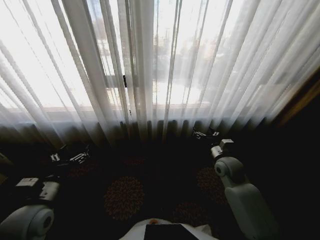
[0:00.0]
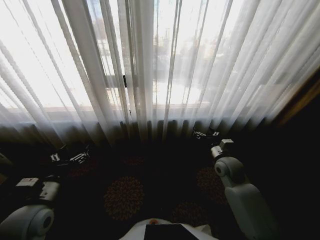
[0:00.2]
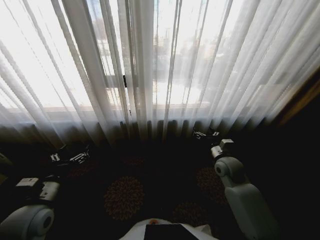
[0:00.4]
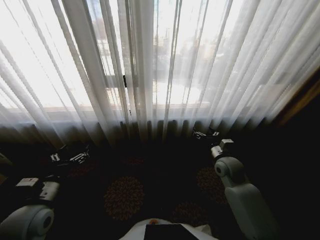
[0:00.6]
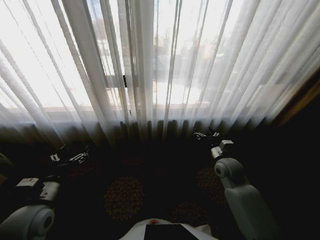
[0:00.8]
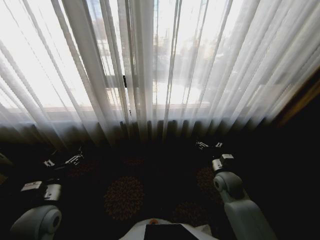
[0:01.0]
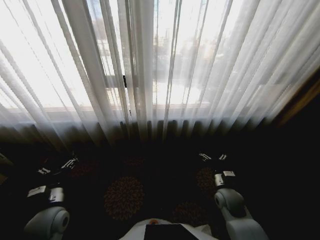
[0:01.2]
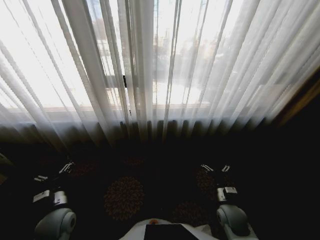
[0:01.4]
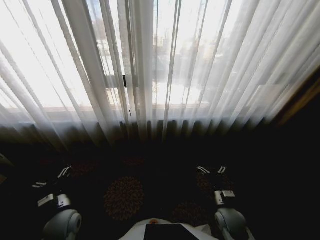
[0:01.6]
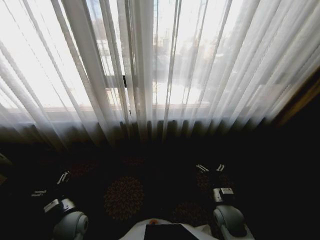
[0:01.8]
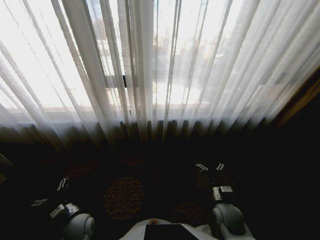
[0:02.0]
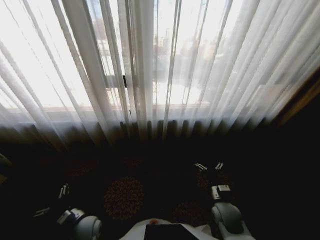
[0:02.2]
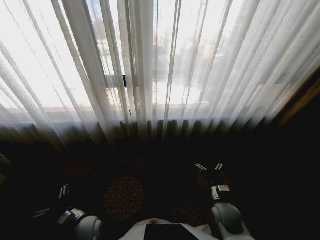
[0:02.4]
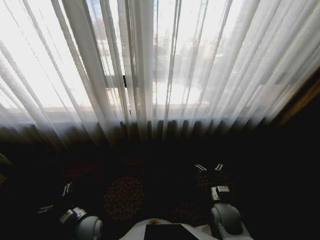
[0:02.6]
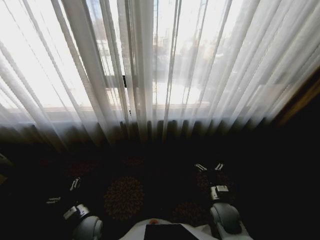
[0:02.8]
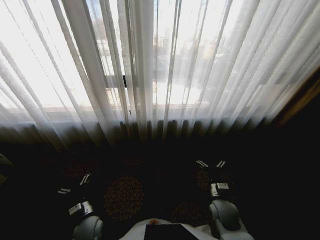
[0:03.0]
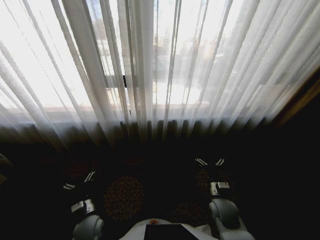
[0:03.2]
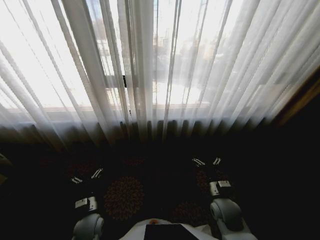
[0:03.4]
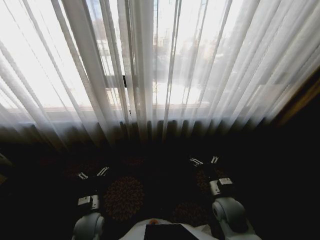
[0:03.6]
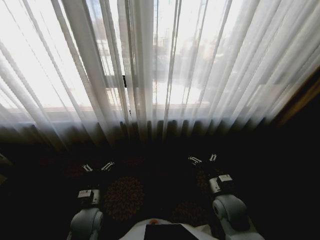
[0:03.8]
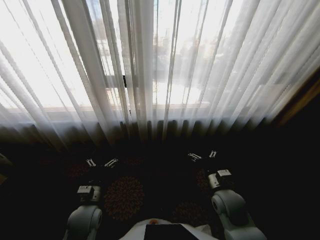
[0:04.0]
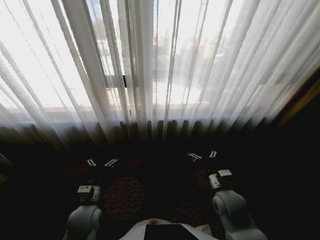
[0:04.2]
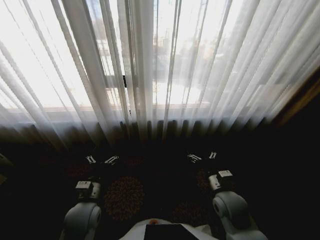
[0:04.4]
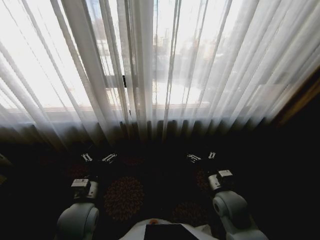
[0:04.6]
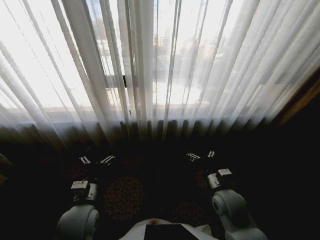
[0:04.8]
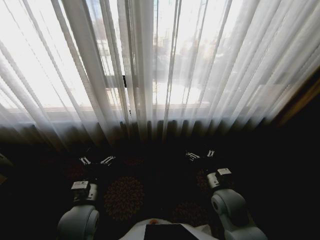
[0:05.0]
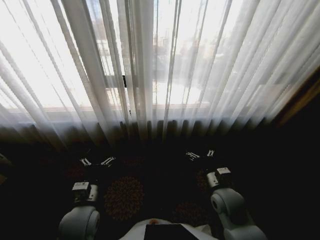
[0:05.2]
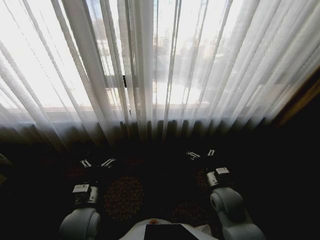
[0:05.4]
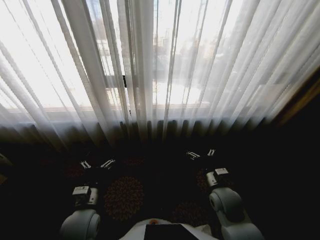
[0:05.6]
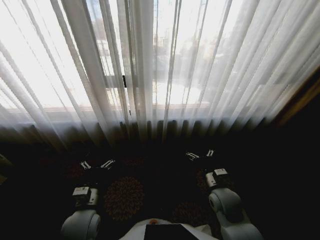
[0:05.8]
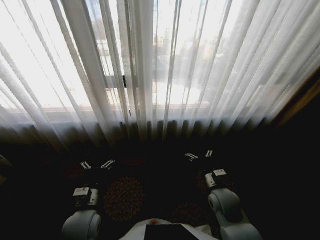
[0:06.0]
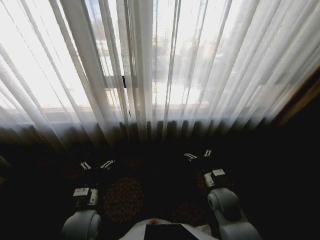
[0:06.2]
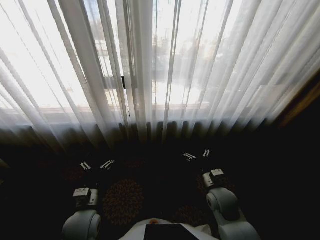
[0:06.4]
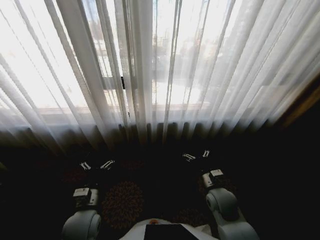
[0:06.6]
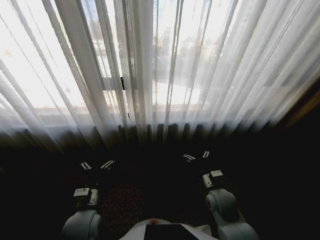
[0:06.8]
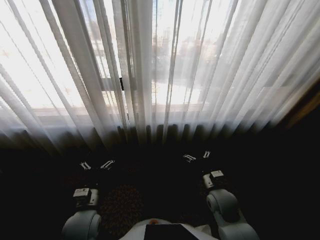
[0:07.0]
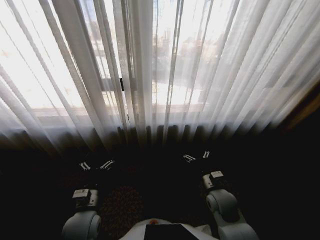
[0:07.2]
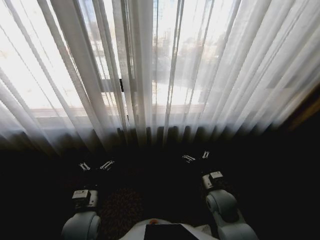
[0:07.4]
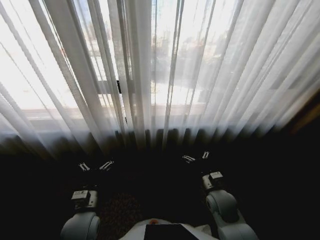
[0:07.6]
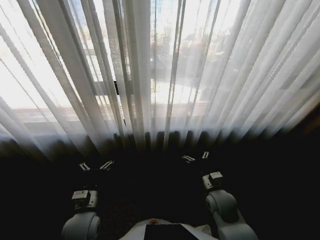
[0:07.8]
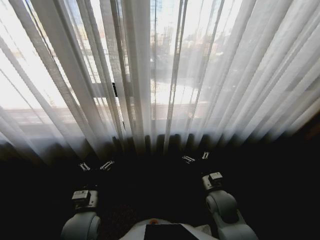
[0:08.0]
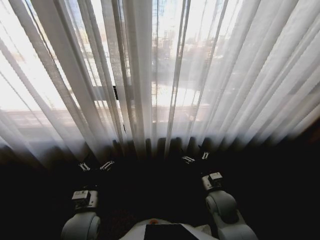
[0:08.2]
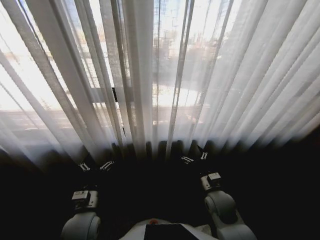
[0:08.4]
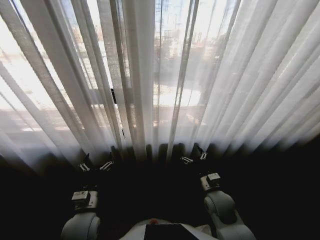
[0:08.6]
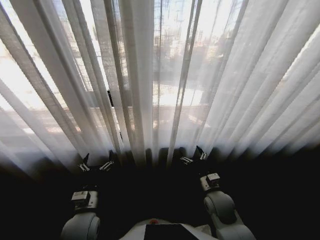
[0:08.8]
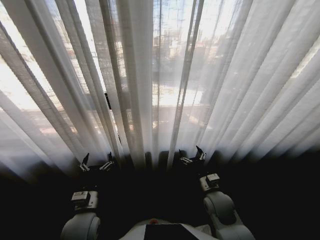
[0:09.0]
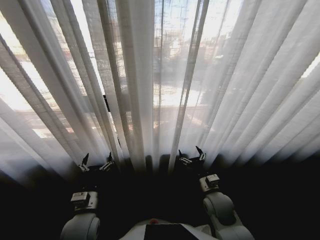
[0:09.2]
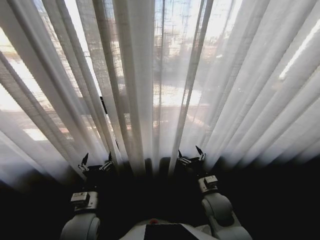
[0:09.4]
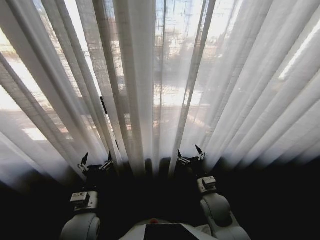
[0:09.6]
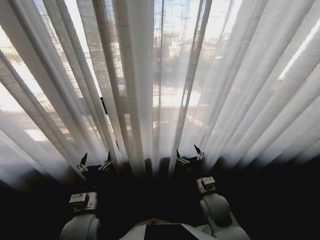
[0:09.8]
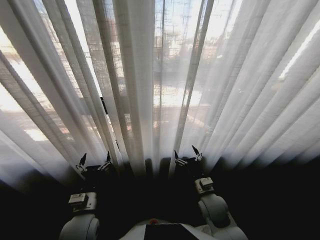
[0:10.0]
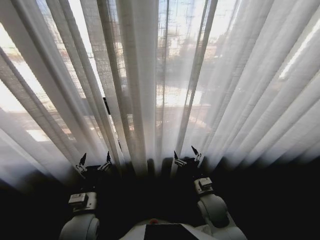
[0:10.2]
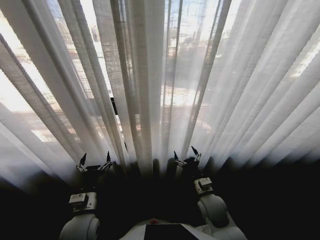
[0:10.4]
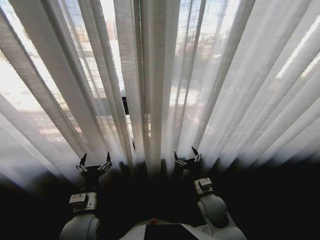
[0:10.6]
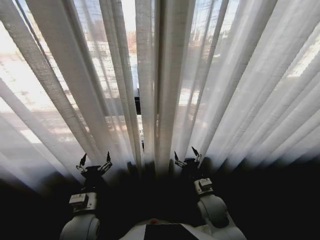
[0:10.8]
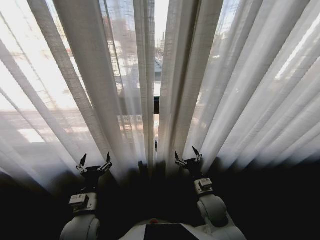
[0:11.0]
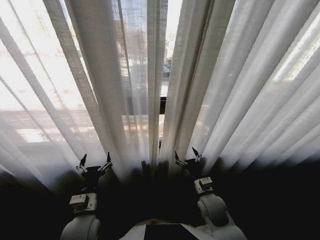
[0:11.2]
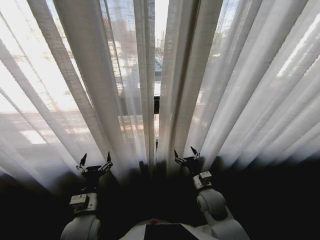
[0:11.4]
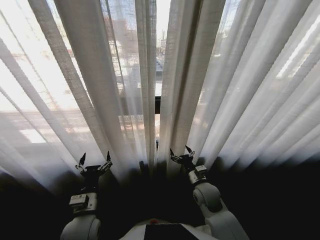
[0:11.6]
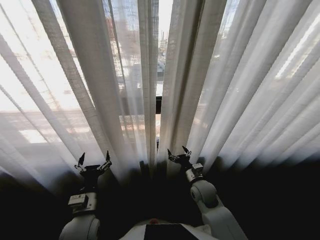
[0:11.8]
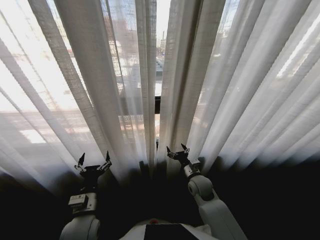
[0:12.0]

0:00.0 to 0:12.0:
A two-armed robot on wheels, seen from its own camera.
Task of the whole recording: Open the curtains by pulling them apart, changing their state from closed to fully open.
0:01.6 to 0:03.0: The left gripper goes about 10 cm downward and to the right.
0:03.0 to 0:04.4: The grippers both shift upward by roughly 10 cm.
0:04.4 to 0:06.0: The grippers stay close to where they were, moving slightly.
0:10.4 to 0:12.0: The right gripper moves forward, about 10 cm.

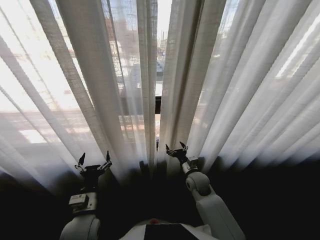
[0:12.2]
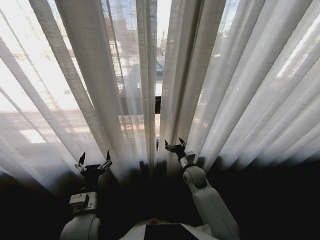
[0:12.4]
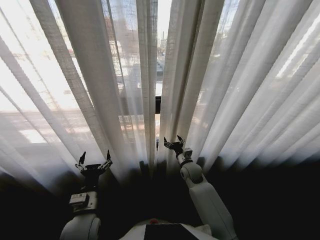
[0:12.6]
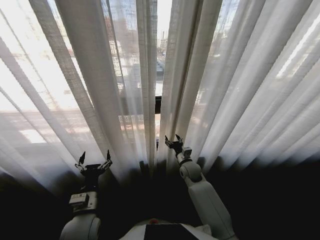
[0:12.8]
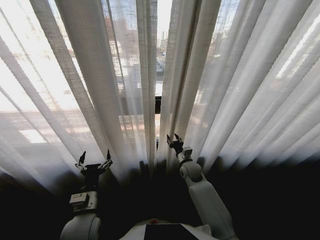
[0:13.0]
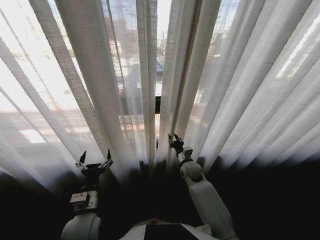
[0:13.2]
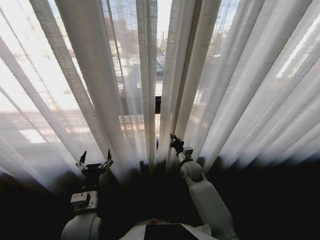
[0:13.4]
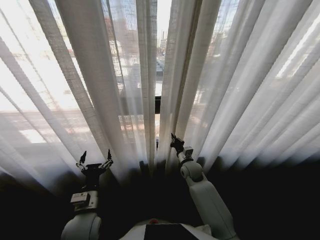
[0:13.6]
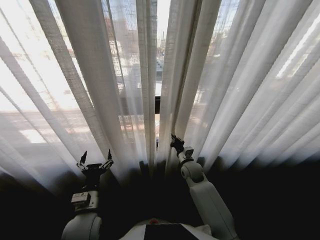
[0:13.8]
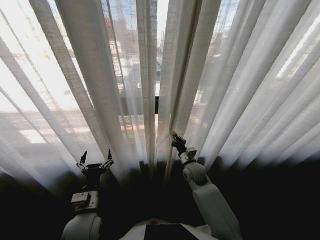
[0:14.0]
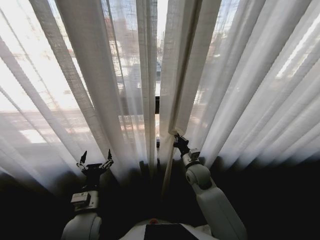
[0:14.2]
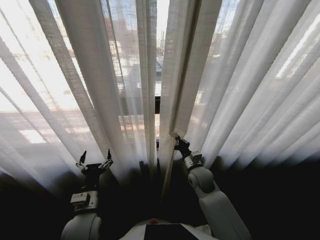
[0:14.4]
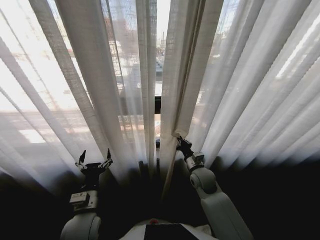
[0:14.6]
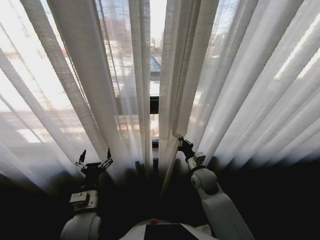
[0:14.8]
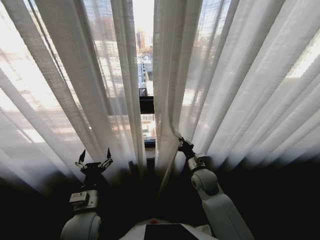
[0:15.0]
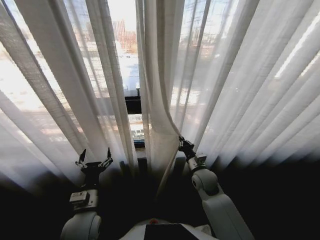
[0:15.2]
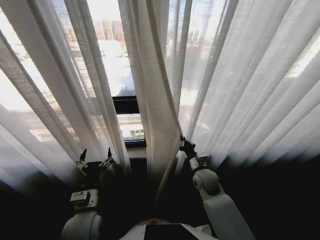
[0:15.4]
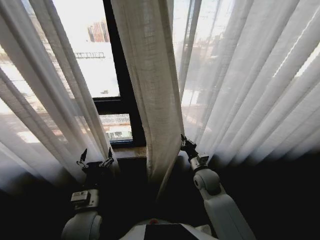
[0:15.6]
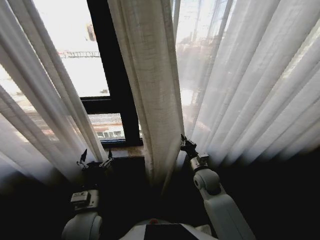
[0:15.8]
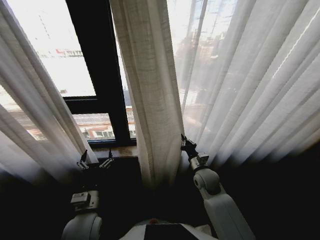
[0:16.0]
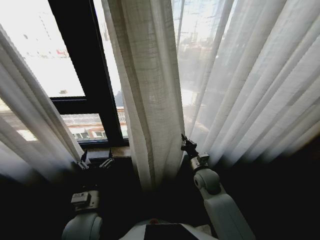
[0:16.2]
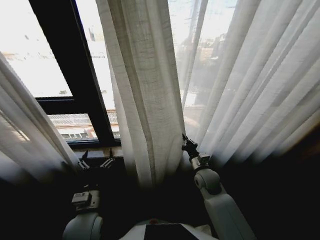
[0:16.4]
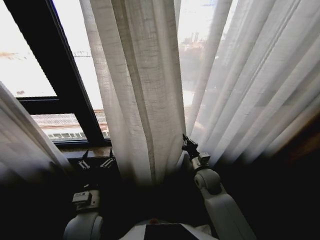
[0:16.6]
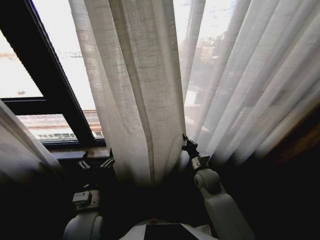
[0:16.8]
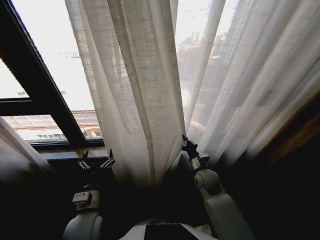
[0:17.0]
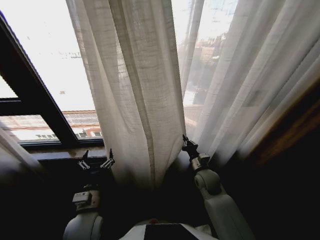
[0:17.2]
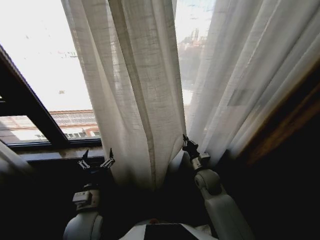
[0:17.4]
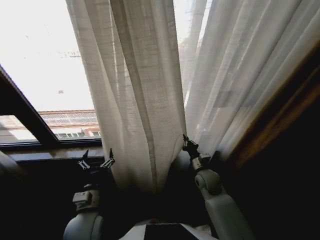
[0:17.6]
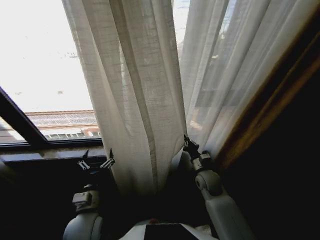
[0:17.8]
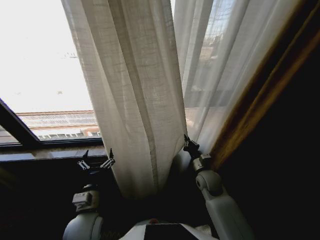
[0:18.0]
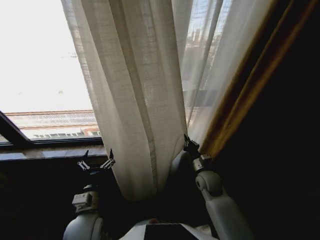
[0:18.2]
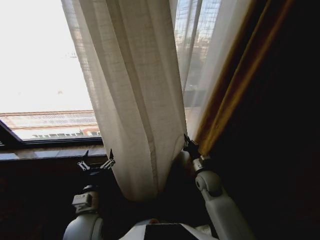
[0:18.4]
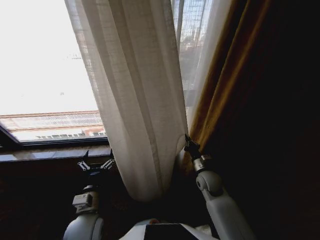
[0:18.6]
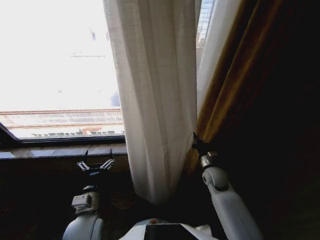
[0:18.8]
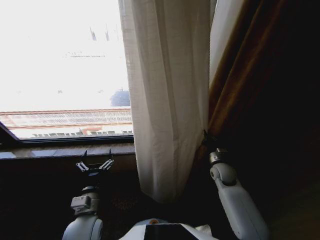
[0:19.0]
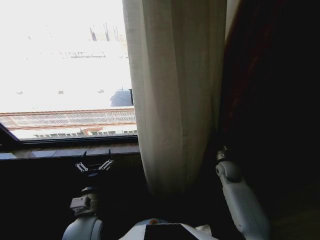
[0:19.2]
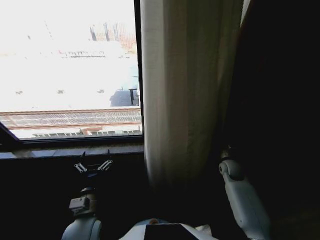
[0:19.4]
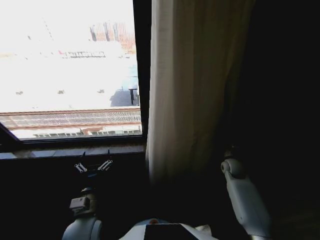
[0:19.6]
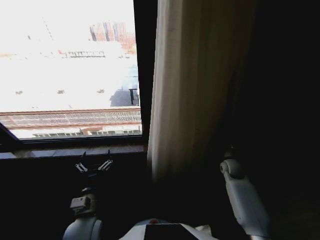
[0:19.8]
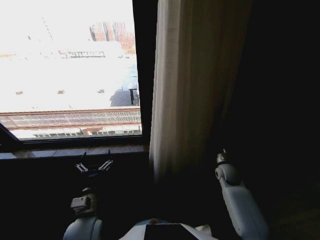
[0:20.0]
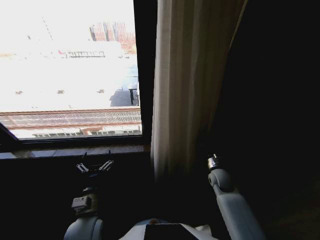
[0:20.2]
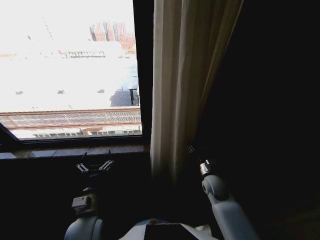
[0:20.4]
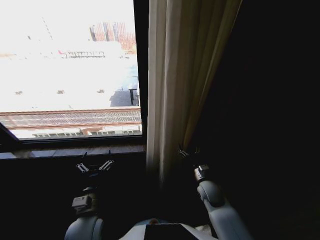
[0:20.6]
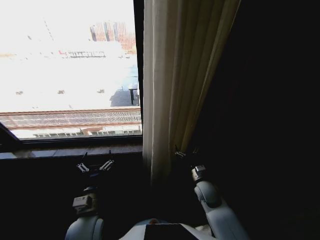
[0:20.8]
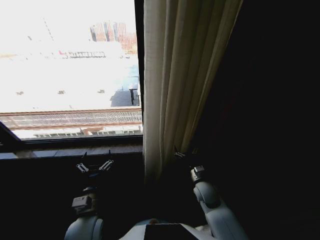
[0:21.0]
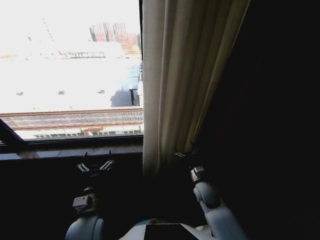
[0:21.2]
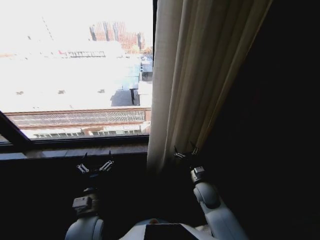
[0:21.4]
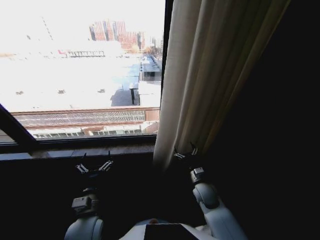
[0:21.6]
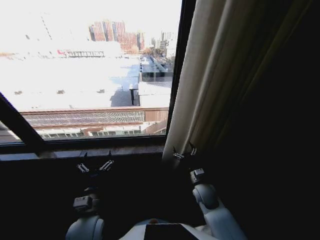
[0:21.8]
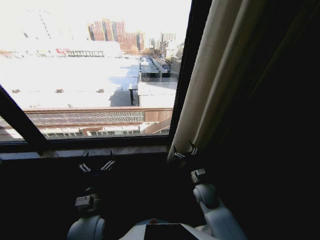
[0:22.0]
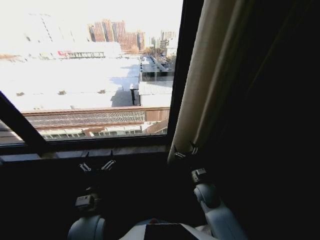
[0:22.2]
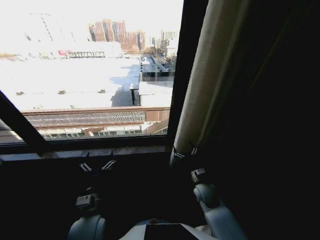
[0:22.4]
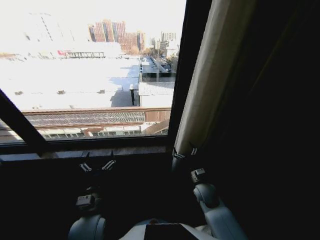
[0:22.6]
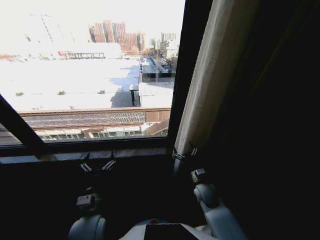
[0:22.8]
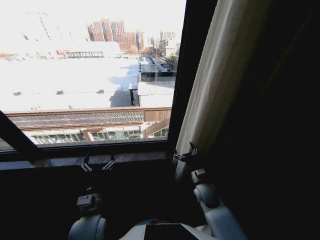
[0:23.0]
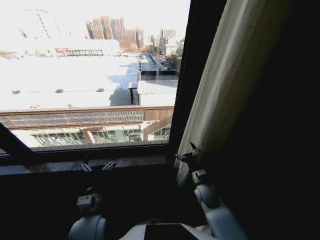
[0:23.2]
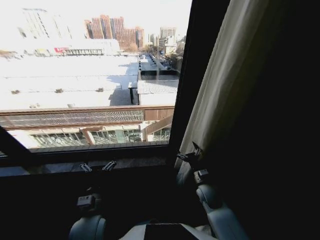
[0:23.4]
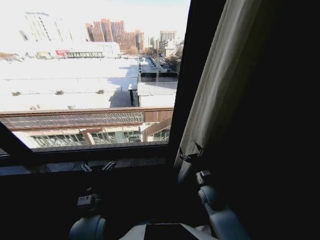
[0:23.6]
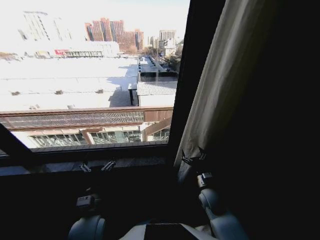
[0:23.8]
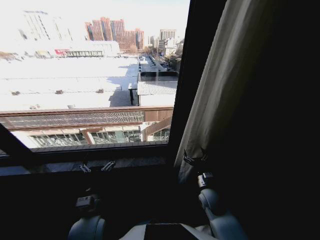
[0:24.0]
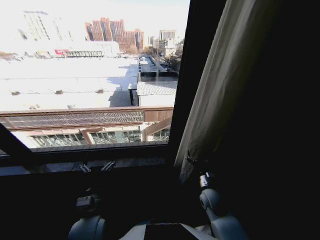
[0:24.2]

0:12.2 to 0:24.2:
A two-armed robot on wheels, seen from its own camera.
Task of the whole recording: Open the curtains by pulling them apart, changing their state from closed to fully open.
0:12.2 to 0:13.8: The right gripper shifts about 5 cm forward, and closes.
0:13.8 to 0:15.2: The right gripper goes some 5 cm backward.
0:18.2 to 0:19.8: The right gripper heads to the right and forward, covering some 20 cm.
0:19.8 to 0:21.2: The right gripper is displaced to the left and backward by approximately 20 cm, and opens up.
